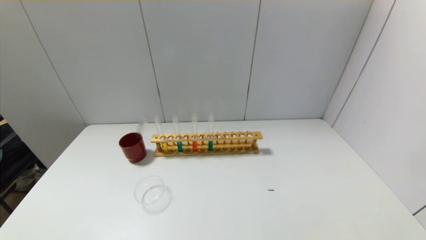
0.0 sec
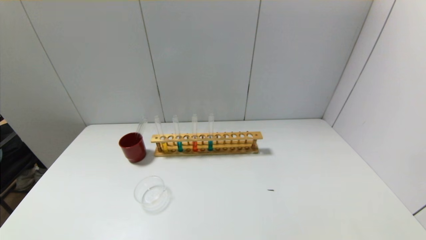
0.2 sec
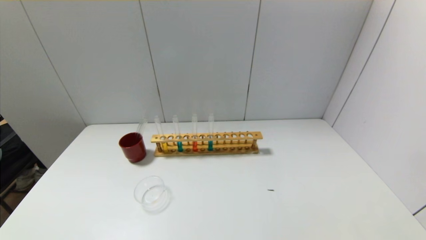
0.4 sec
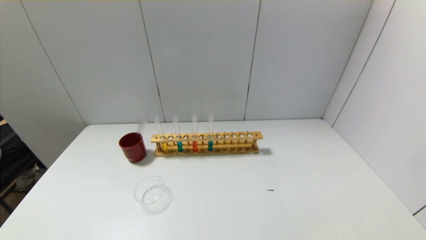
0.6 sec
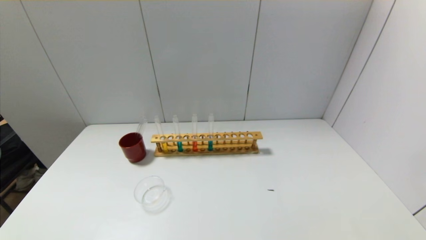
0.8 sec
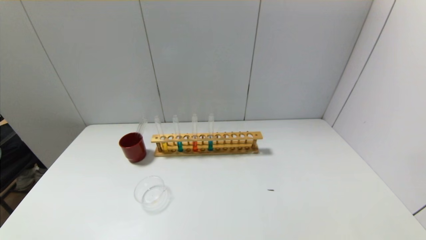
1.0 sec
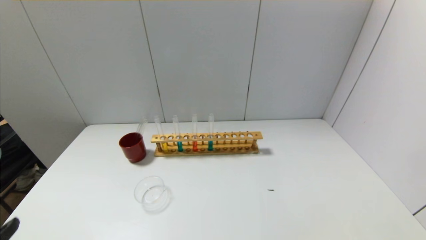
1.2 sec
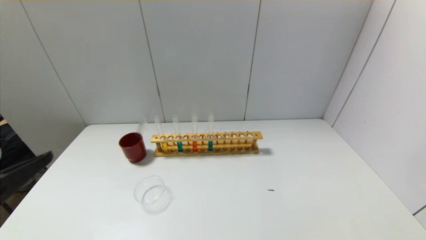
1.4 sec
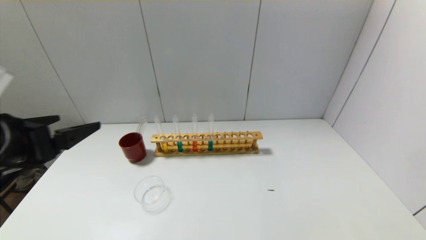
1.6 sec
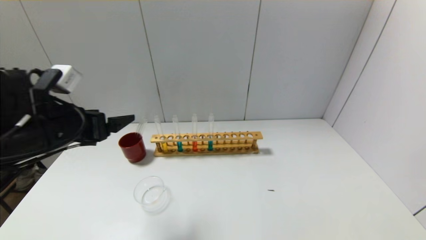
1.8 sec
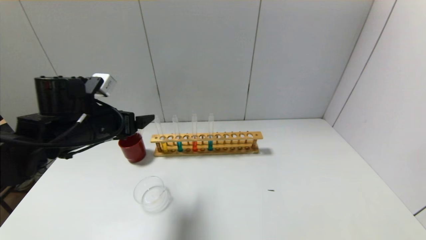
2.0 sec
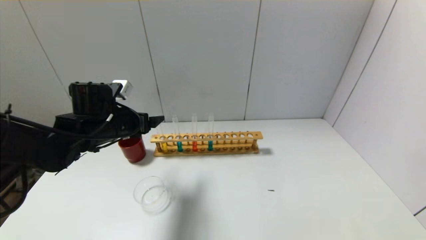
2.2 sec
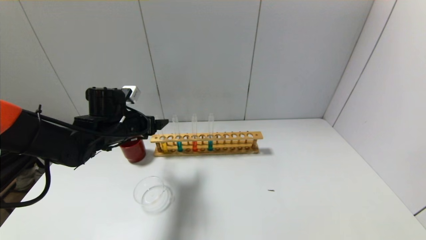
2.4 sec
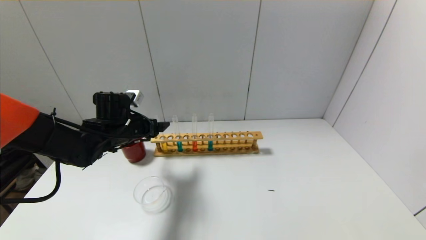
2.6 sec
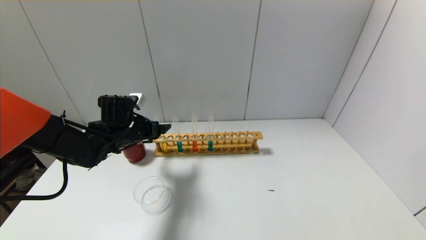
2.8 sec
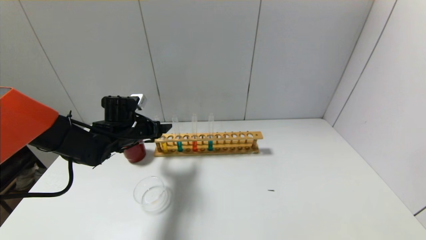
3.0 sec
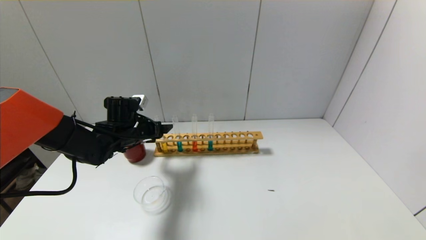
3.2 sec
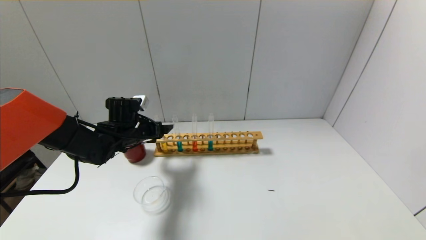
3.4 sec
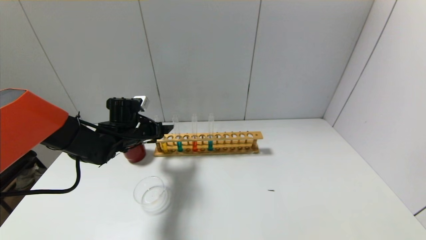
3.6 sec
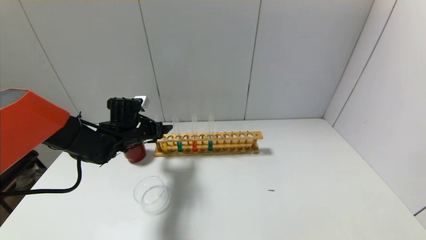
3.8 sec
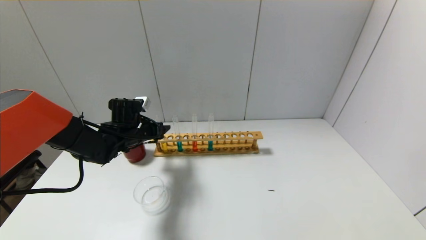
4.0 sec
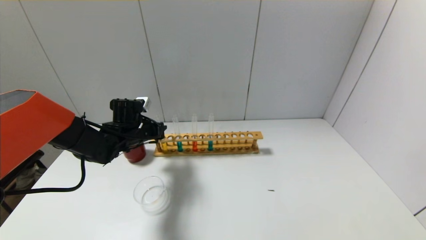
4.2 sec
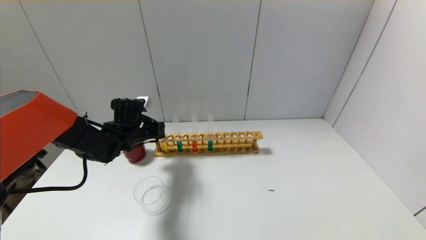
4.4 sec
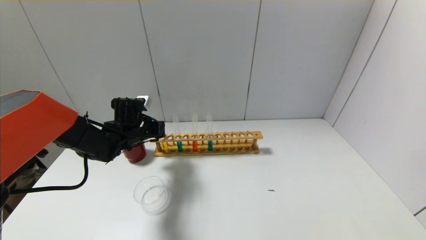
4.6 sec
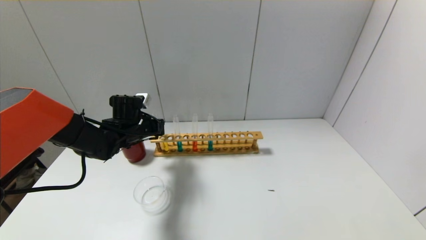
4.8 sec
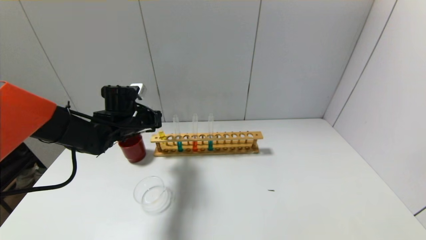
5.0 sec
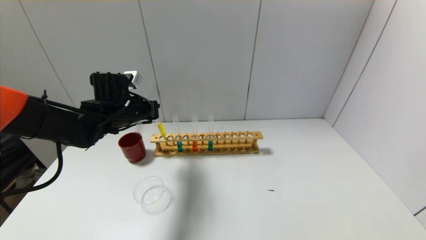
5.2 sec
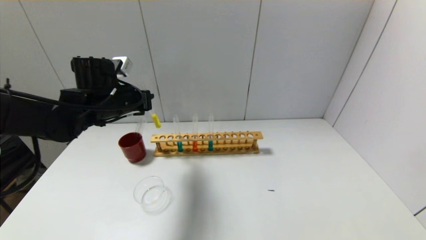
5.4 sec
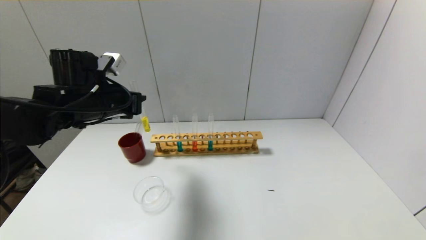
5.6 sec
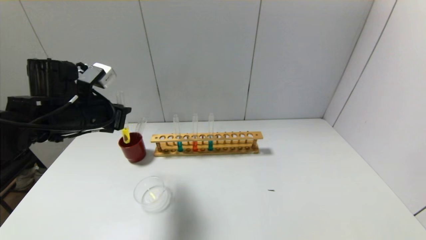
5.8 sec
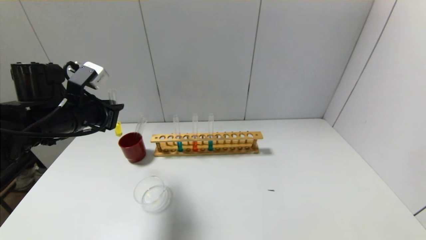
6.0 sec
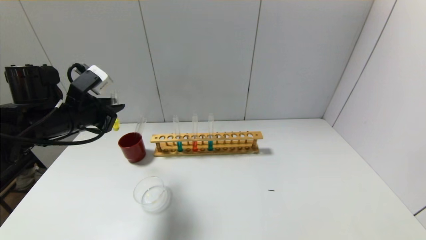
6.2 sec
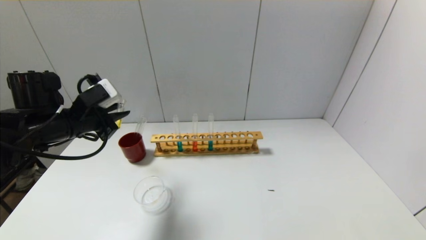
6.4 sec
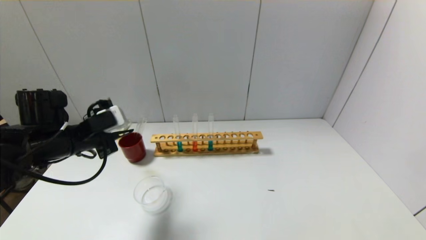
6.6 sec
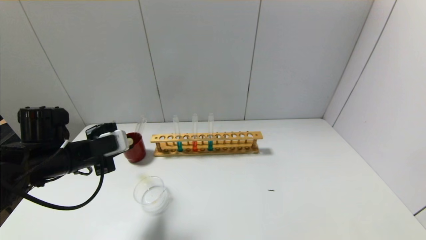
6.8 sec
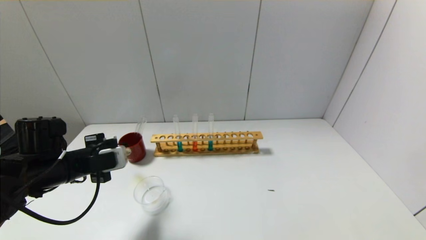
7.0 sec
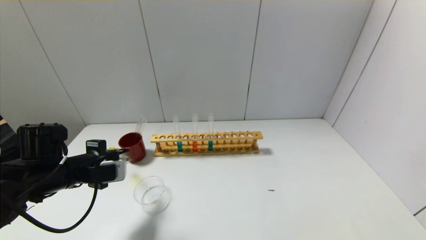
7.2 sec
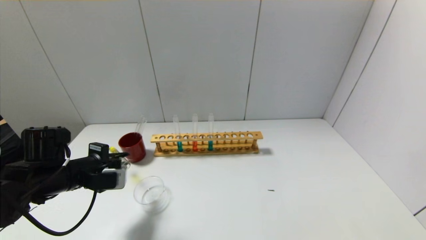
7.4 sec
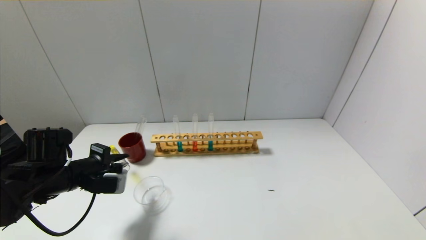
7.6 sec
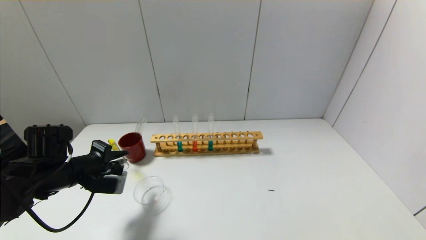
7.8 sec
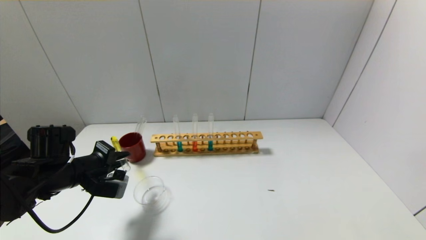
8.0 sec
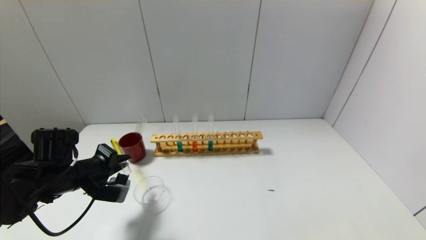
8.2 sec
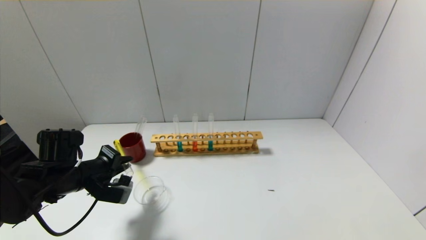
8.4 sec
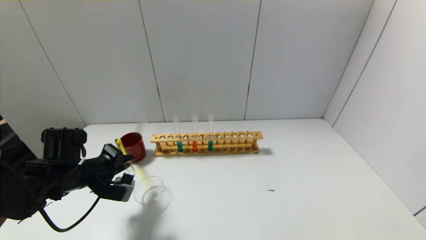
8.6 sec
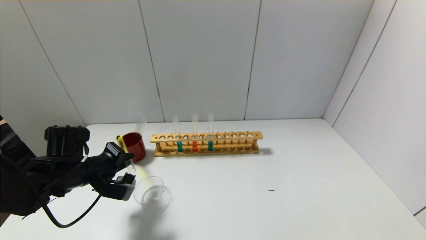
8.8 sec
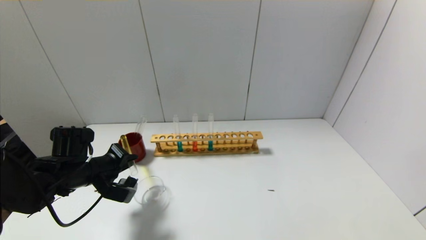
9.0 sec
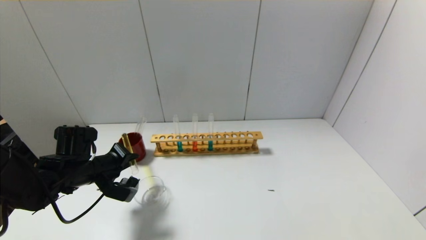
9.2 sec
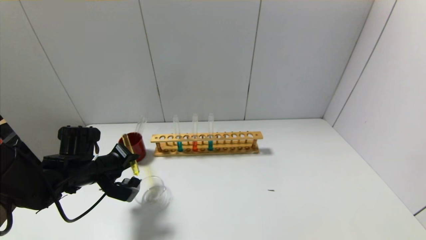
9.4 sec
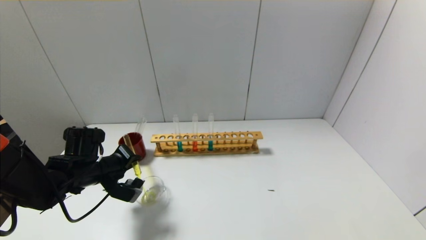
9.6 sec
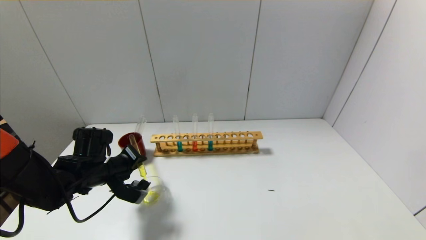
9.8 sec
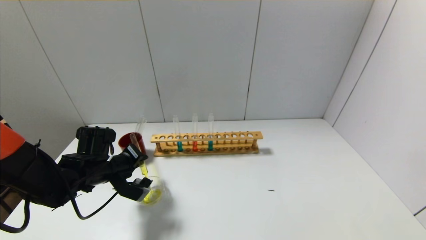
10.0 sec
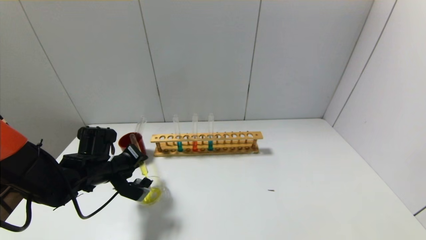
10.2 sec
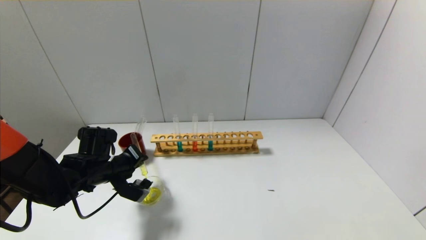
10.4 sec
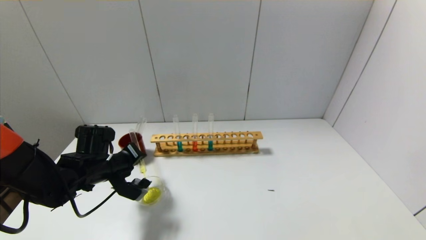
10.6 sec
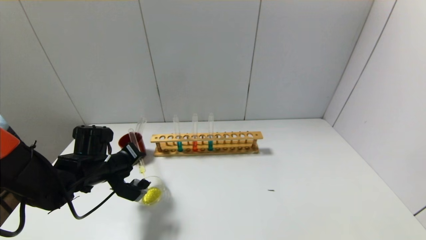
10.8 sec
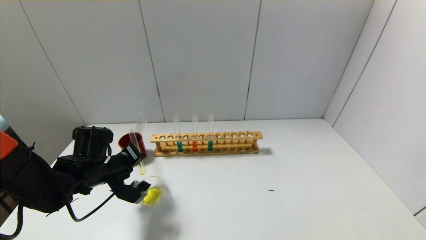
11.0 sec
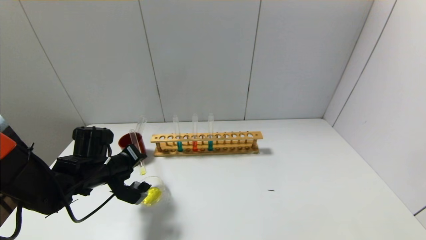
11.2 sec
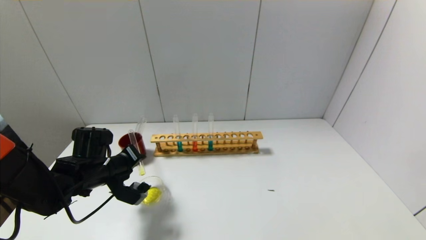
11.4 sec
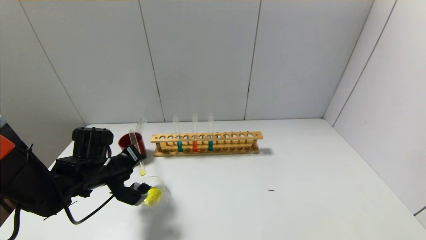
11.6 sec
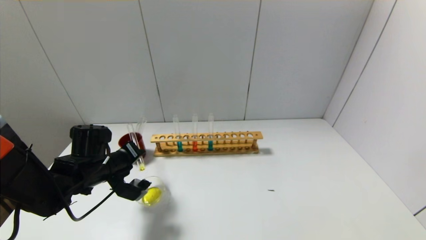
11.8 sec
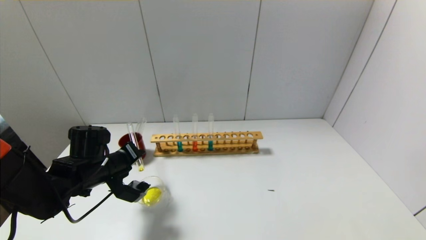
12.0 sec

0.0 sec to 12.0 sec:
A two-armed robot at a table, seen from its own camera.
Step, 0.0 sec to 4.4 sec: Grasp the yellow reagent with the left gripper.
0.0 sec to 1.6 sec: The left gripper moves forward and upward, roughly 25 cm.
1.6 sec to 3.0 sec: The left gripper moves forward and downward, approximately 25 cm.
3.0 sec to 4.4 sec: The left gripper closes its fingers.
4.4 sec to 6.0 sec: The left gripper shifts approximately 15 cm upward, backward and to the left.
6.0 sec to 7.6 sec: The left gripper is displaced downward by approximately 10 cm.
9.0 sec to 12.0 sec: There are only small adjustments of the grippers.

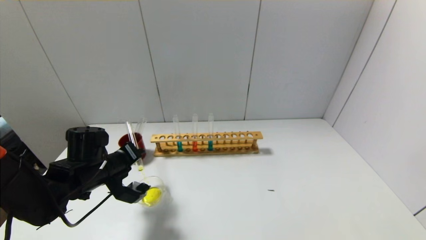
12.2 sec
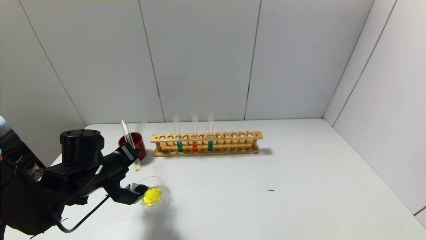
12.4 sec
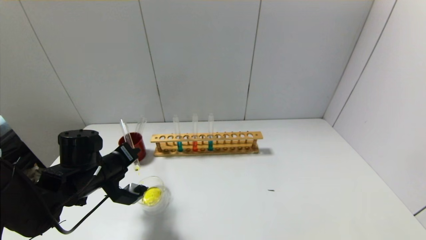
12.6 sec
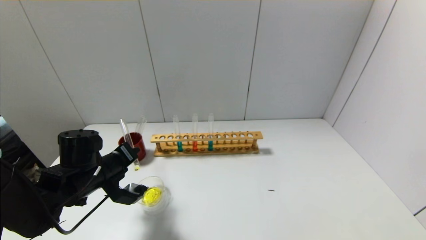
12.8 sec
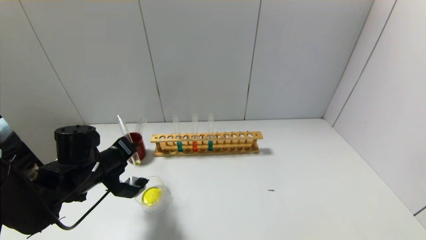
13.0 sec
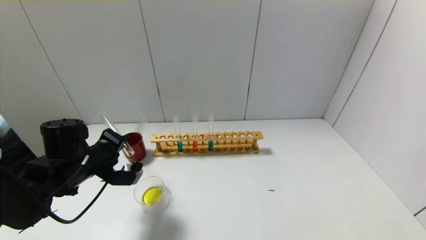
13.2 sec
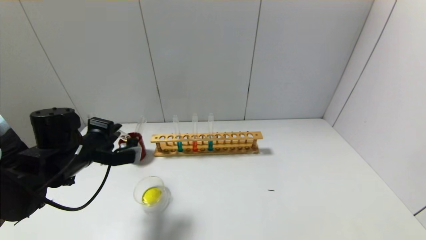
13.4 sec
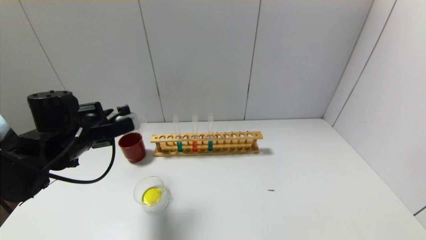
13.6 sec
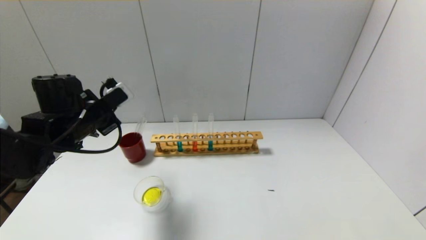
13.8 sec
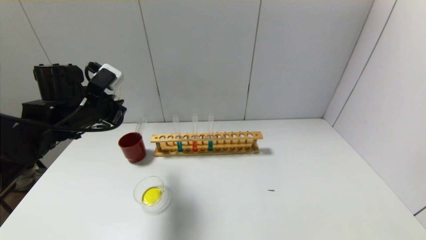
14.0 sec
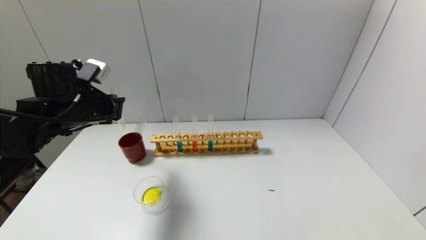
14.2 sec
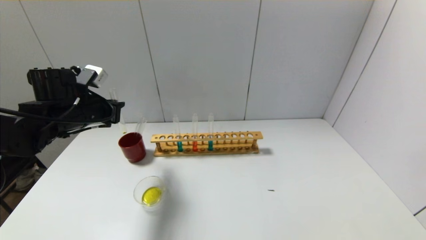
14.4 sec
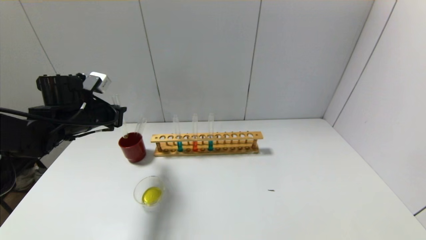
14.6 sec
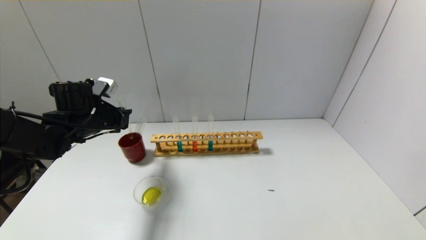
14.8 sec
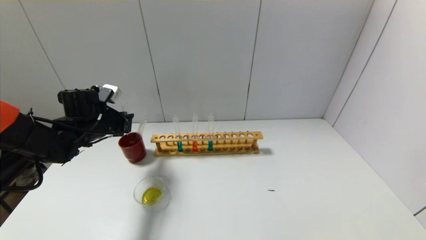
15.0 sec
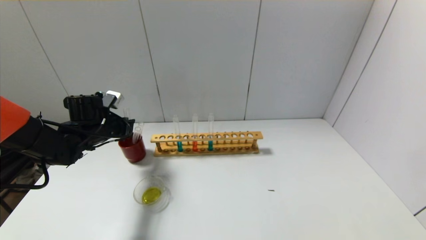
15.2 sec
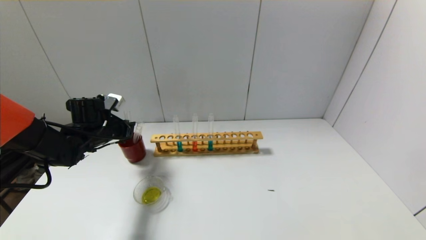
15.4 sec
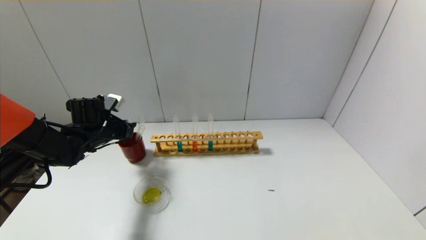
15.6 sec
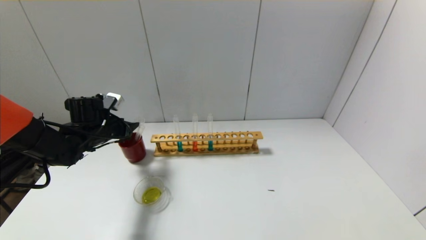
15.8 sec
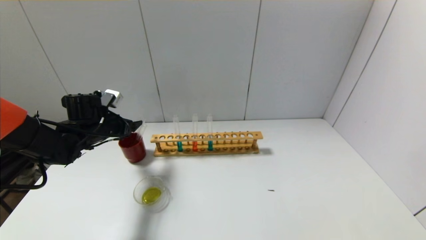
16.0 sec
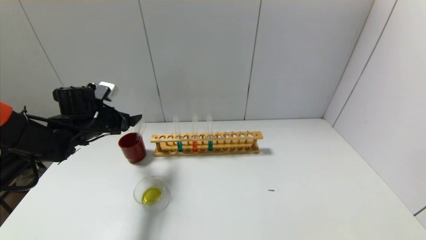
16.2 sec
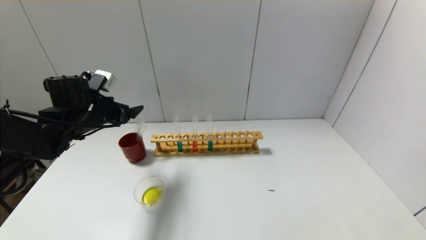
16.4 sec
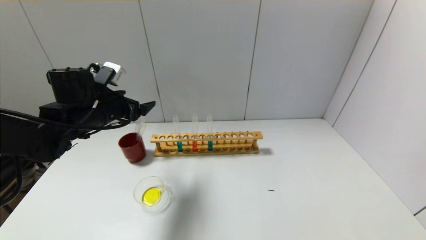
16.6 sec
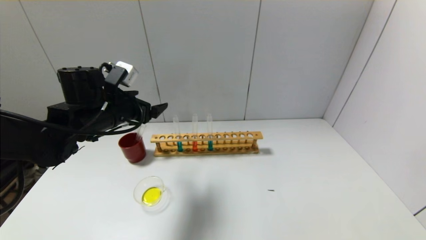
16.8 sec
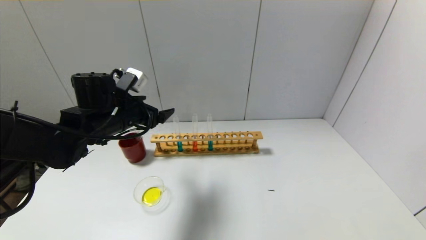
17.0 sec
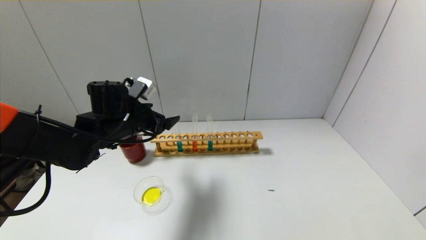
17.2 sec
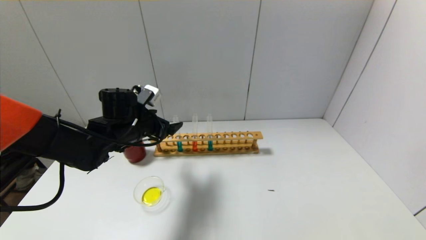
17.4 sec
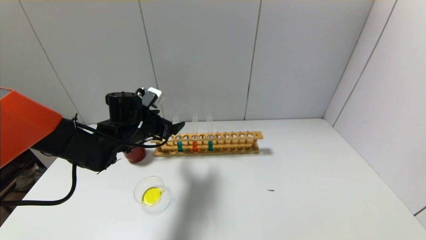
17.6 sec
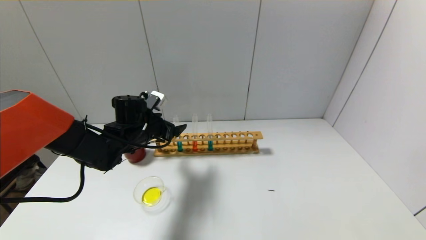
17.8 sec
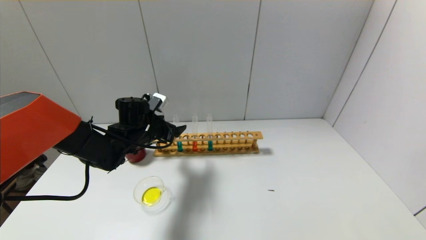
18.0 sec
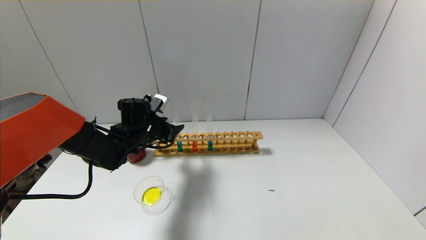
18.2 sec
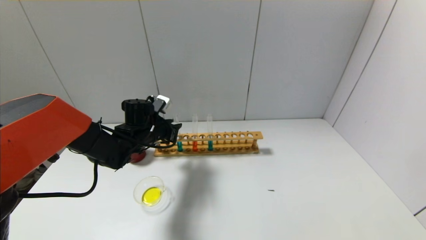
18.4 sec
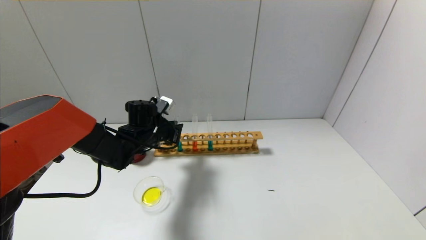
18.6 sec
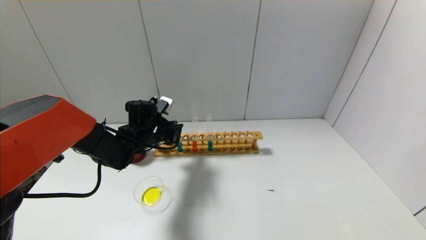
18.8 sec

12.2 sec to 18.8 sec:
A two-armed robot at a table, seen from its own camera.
Step, 13.4 sec to 15.6 sec: Place the test tube into the brown cup with the left gripper.
Step, 15.8 sec to 18.6 sec: Grasp the blue reagent with the left gripper.
12.2 sec to 13.8 sec: The left gripper heads upward, covering about 10 cm.
13.8 sec to 15.4 sec: The left gripper moves downward and forward, about 10 cm.
15.4 sec to 17.2 sec: The left gripper travels to the right and upward by approximately 10 cm, and opens its fingers.
17.2 sec to 18.8 sec: The left gripper shifts approximately 10 cm downward and forward, and closes its fingers.
